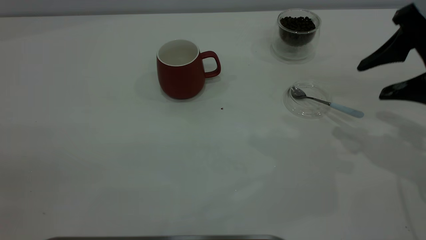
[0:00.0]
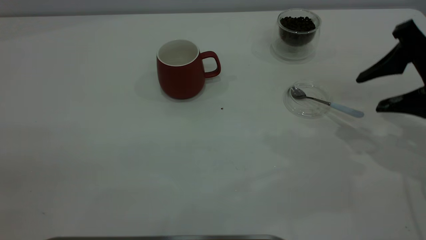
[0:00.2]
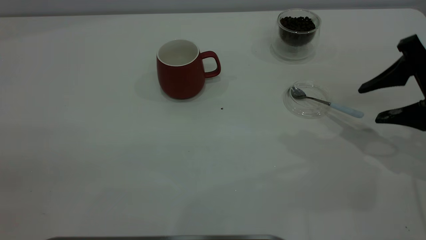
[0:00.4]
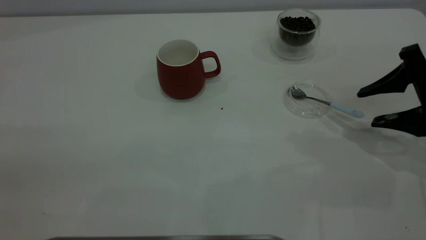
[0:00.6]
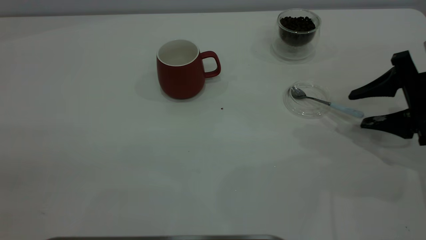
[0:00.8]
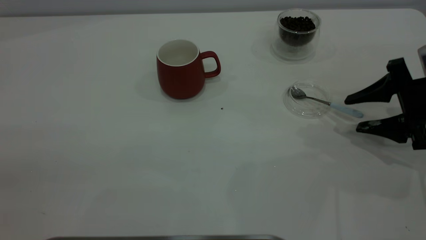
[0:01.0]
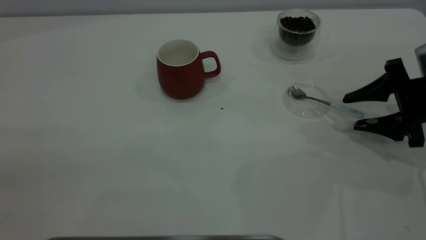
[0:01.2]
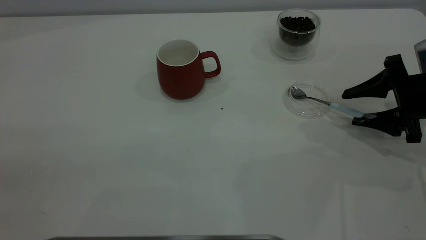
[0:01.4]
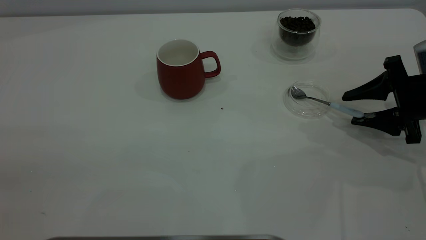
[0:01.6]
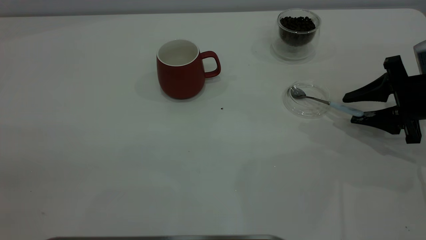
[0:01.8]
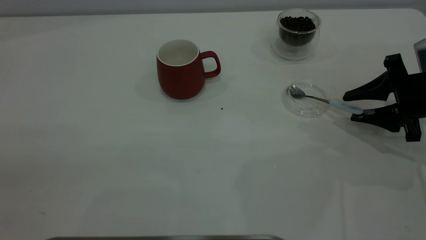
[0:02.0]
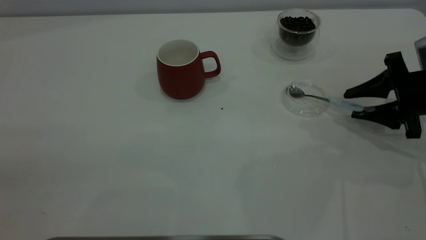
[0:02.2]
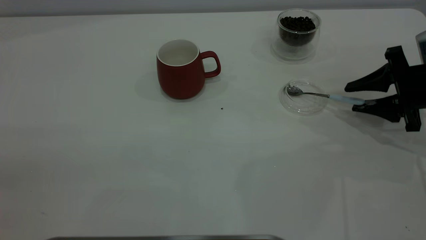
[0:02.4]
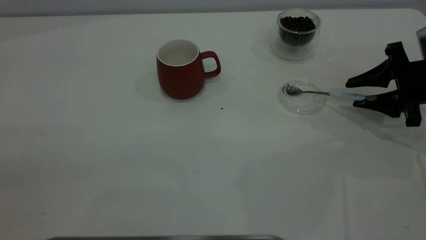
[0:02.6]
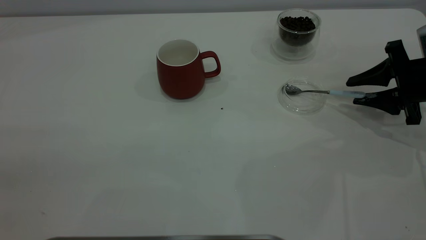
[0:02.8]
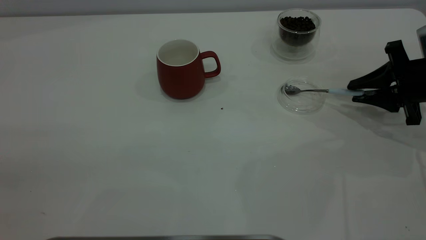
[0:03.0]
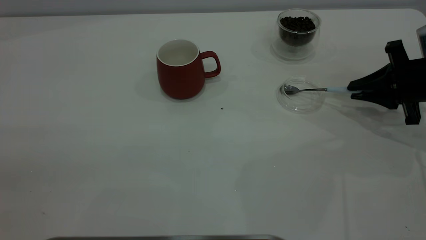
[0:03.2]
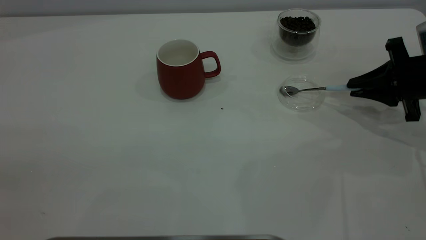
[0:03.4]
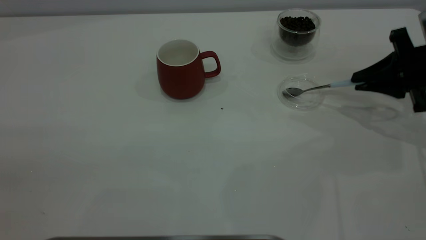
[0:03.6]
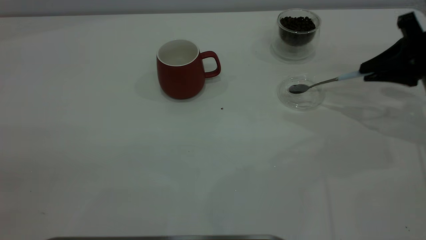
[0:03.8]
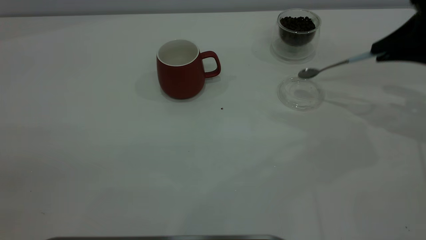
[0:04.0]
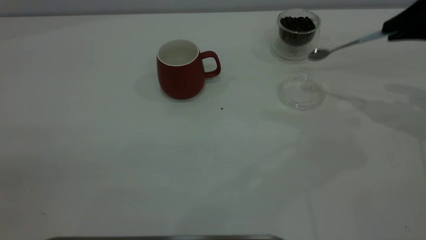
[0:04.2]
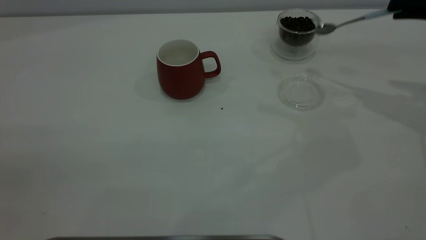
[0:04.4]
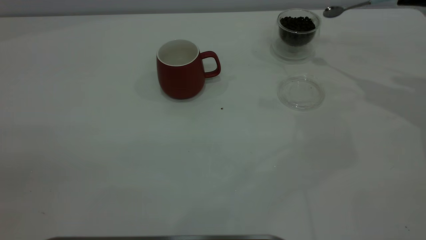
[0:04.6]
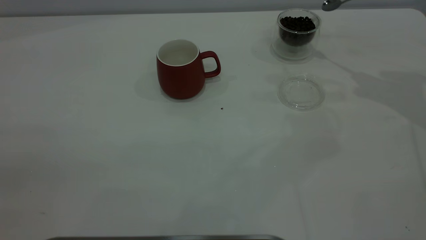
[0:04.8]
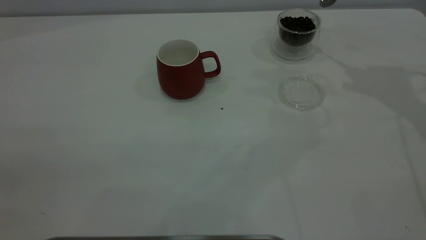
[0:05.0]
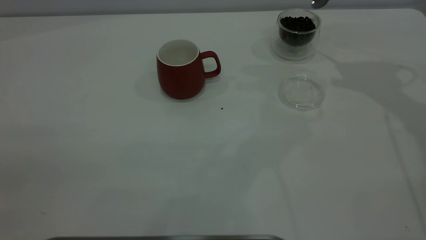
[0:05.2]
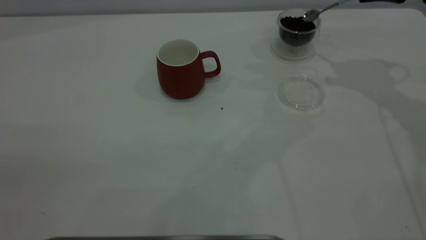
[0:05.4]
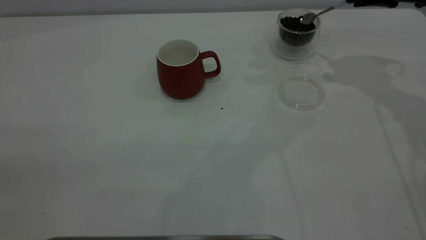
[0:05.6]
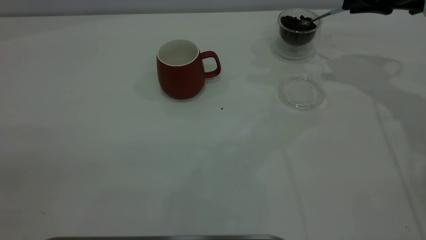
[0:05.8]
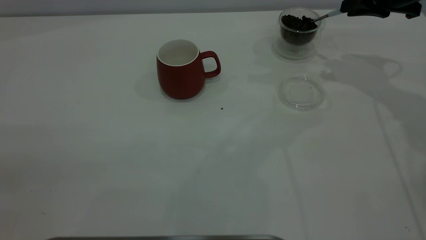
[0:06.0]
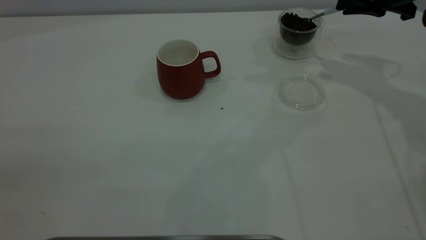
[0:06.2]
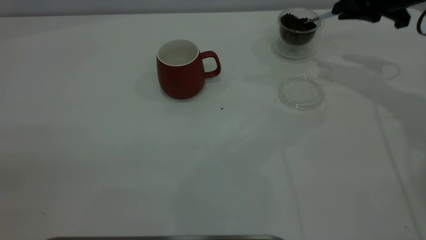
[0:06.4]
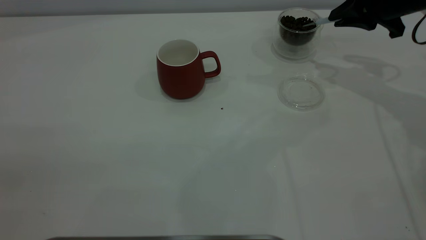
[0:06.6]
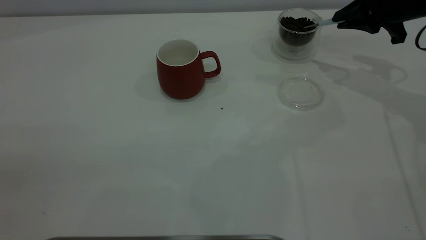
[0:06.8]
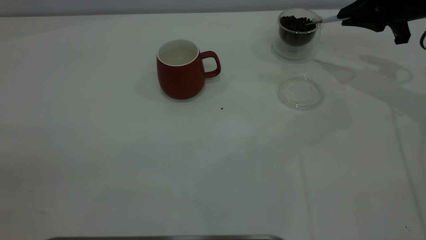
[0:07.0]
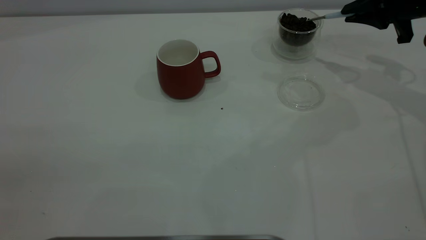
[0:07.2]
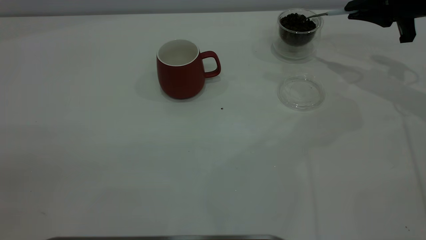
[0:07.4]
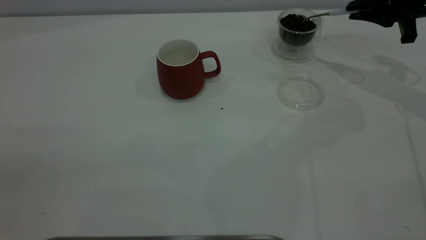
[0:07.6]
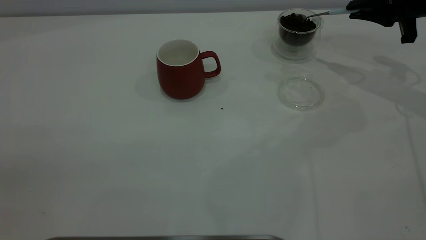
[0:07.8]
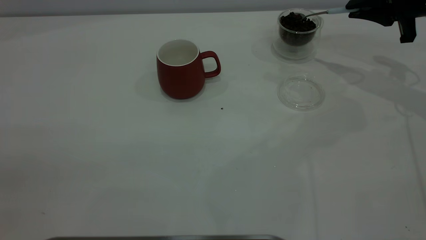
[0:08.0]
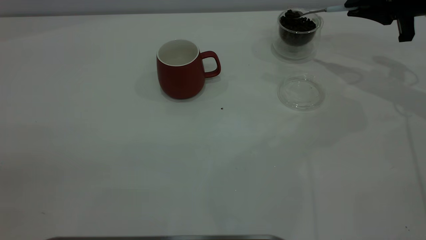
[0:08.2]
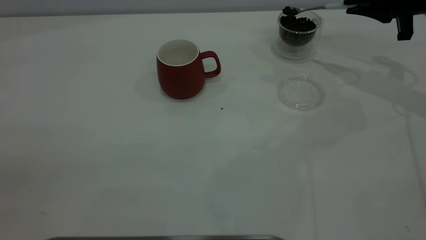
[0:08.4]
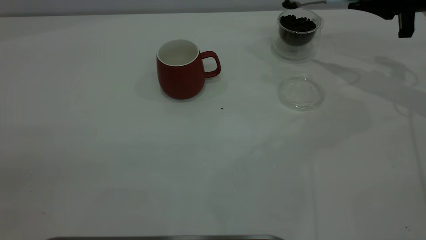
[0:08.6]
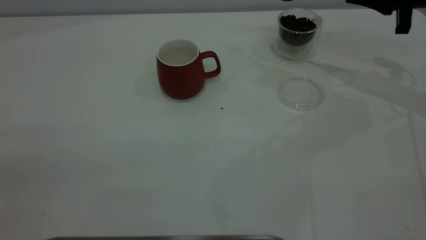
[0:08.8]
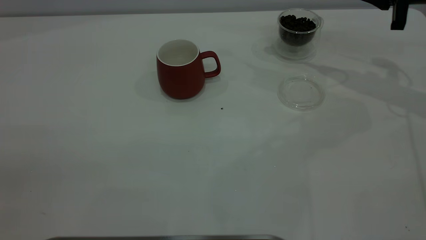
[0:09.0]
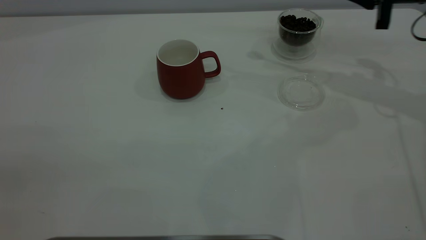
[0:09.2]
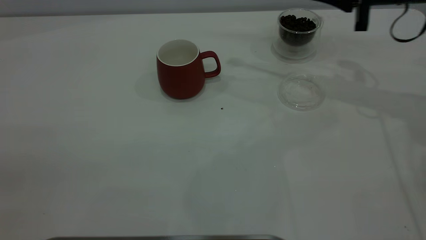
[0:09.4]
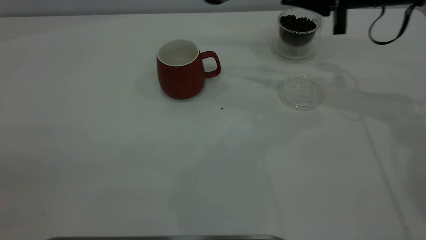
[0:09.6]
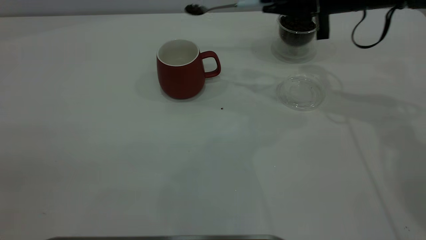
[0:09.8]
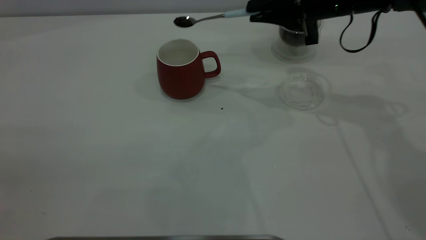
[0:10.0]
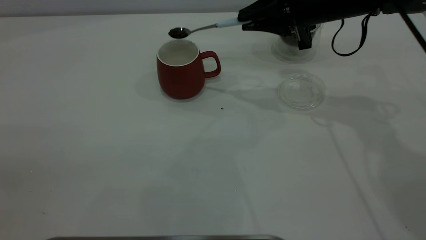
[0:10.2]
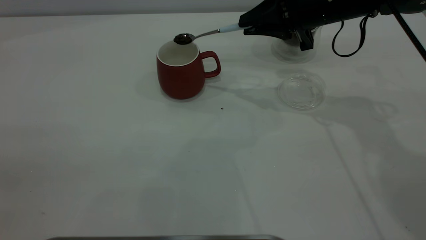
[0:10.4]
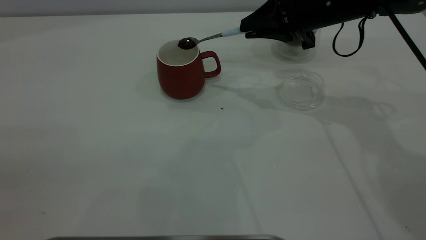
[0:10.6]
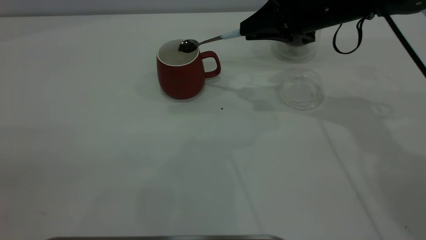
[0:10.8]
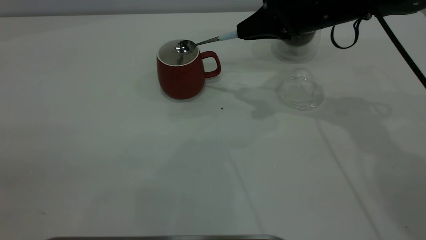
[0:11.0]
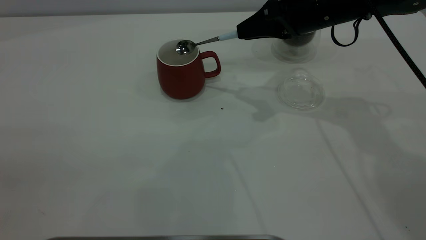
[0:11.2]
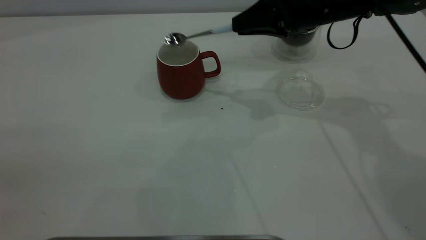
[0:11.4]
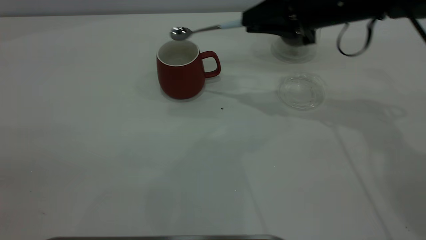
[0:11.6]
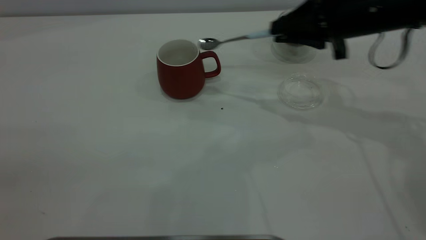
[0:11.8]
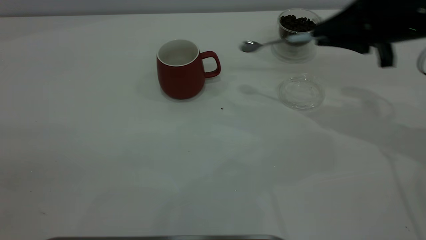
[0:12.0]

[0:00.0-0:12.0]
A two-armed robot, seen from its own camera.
Task of the whole recording: the left gripper place the red cup in the center of the table, the right gripper take the blue spoon from the cup lid and scoop out the coffee beans from the coffee cup and put them into the red cup, the right gripper put the spoon back into the cup lid.
Step, 0:00.0 to 0:03.8: Pick up the spoon.
Step, 0:04.0 to 0:11.2: Scoop a spoonful of beans into the cup.
0:00.0 to 0:01.6: The right gripper shifts some 10 cm downward.
0:01.6 to 0:03.0: The right gripper closes.
0:03.0 to 0:04.4: The right gripper travels upward by approximately 15 cm.
0:04.4 to 0:06.0: The right gripper shifts roughly 10 cm forward and to the left.
0:07.6 to 0:09.0: There are only small adjustments of the grippers.
0:09.0 to 0:10.4: The right gripper moves to the left, about 15 cm.
0:10.4 to 0:12.0: The right gripper is displaced to the right and backward by about 15 cm.

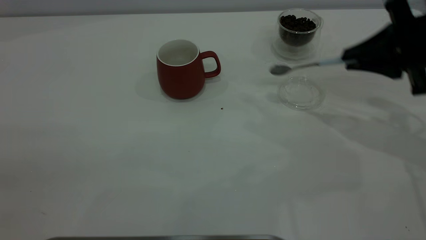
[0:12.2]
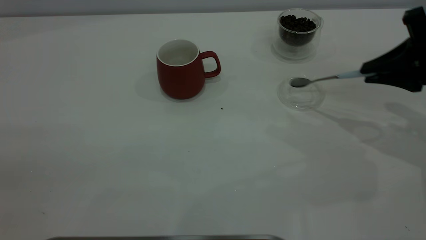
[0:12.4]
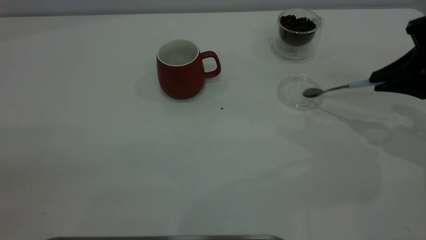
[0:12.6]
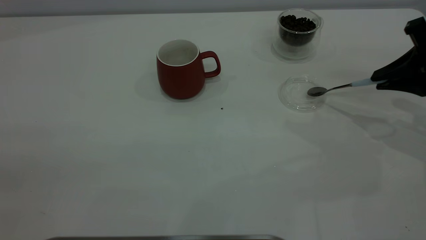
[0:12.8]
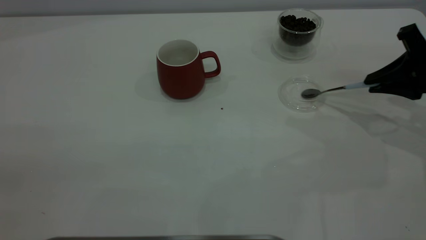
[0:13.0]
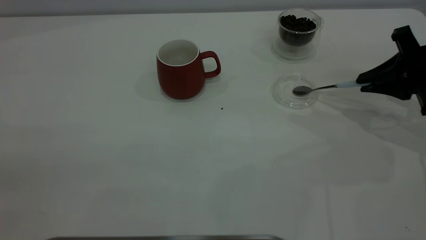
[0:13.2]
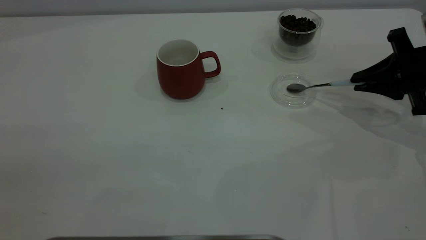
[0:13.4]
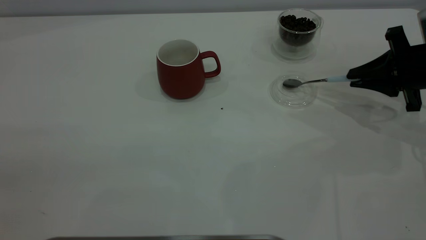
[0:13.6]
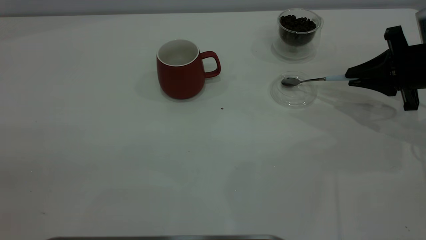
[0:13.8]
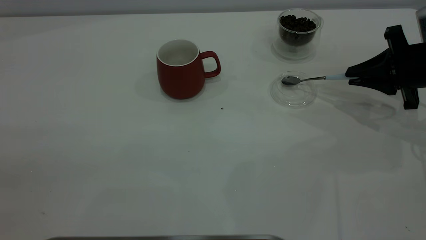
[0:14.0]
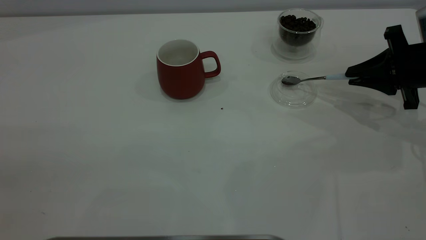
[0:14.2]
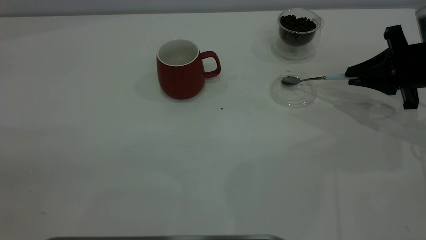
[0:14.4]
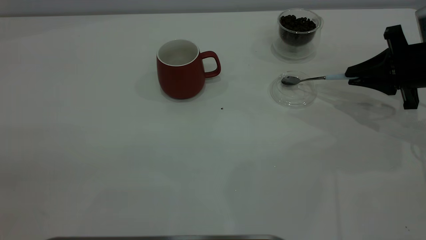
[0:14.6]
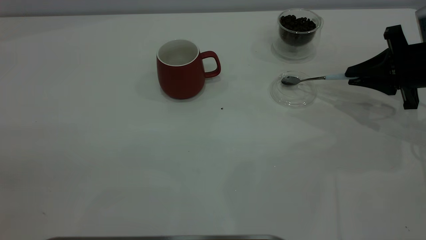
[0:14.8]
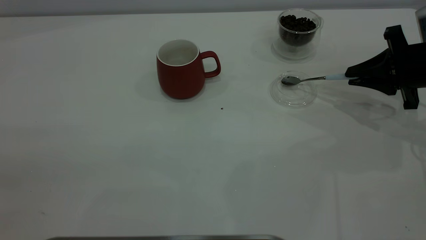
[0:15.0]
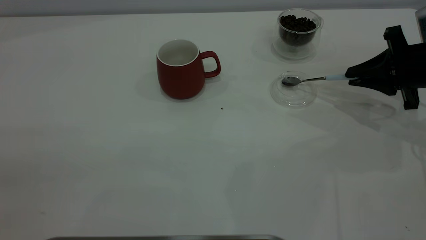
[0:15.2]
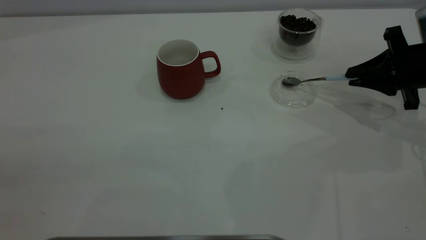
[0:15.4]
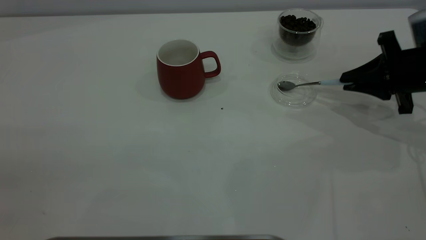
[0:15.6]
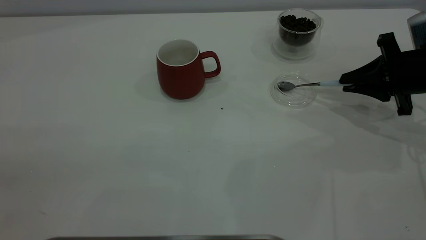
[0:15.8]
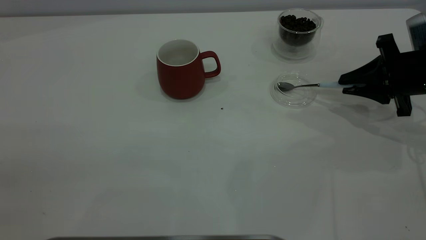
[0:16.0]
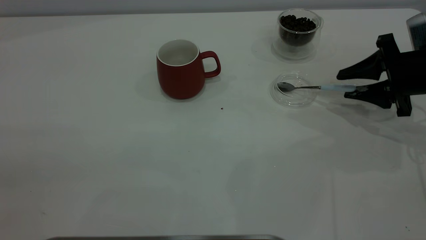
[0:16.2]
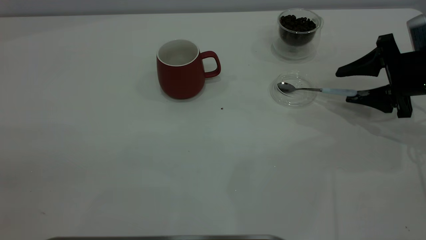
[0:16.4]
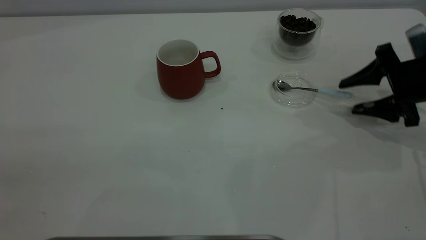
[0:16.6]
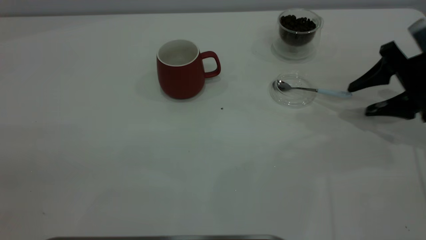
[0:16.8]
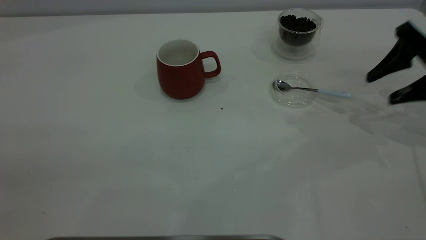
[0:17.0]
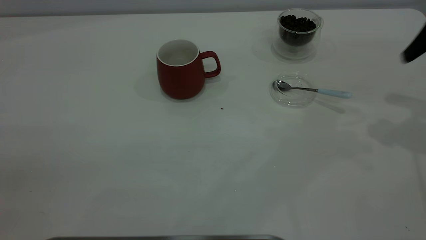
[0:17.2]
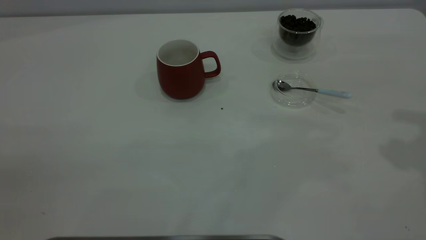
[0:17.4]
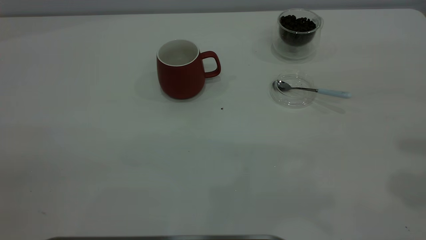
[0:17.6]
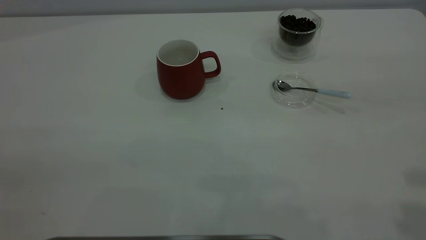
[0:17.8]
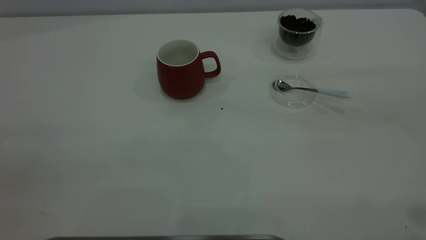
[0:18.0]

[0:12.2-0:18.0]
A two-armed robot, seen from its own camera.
Task of the whole recording: the left gripper place the red cup in the center of the table, the right gripper take the blue spoon from the cup lid and scoop out the coffee beans from the coffee cup and put them into the red cup, the right gripper put the spoon back into the cup lid.
Step, 0:12.2 to 0:16.6: Place the spoon back in its original place.
0:12.2 to 0:13.6: The right gripper is displaced downward by about 5 cm.
0:13.6 to 0:15.0: Both grippers stay put.
0:15.0 to 0:16.6: The right gripper opens up.
0:16.6 to 0:18.0: The right gripper travels upward and backward by approximately 40 cm.
